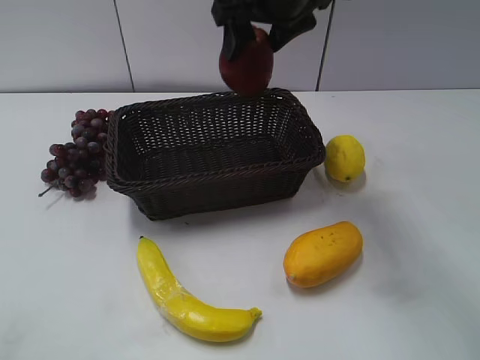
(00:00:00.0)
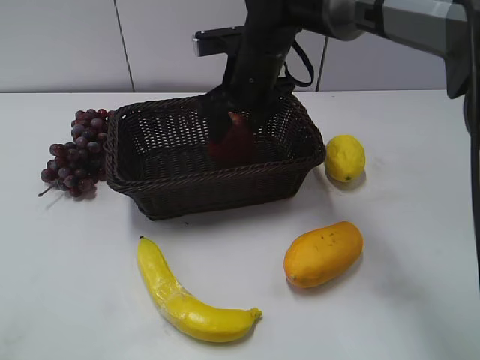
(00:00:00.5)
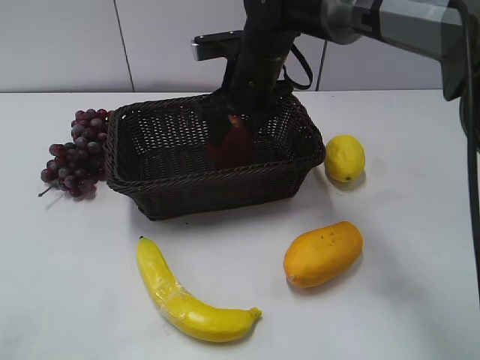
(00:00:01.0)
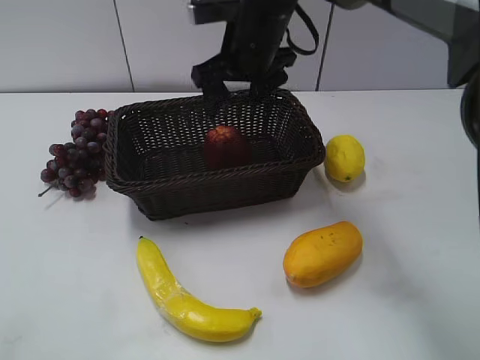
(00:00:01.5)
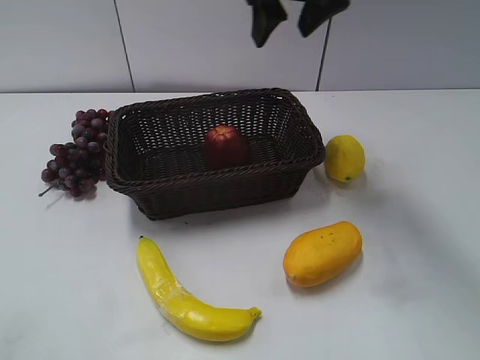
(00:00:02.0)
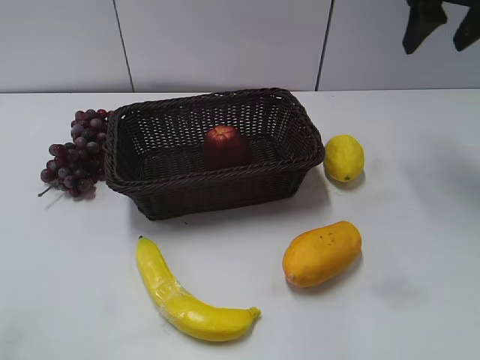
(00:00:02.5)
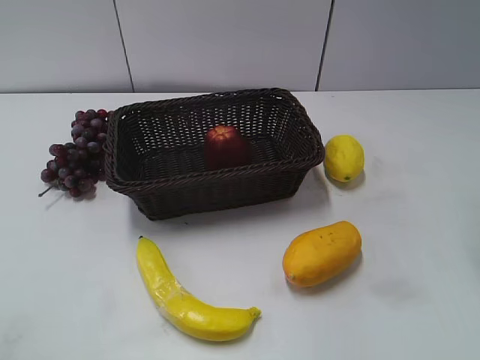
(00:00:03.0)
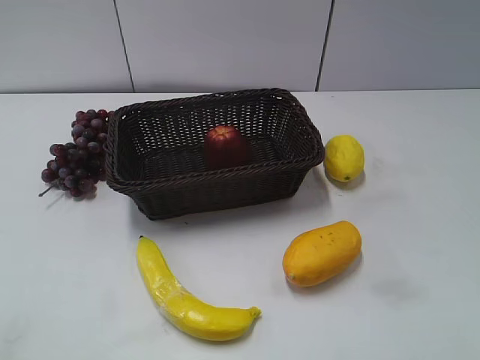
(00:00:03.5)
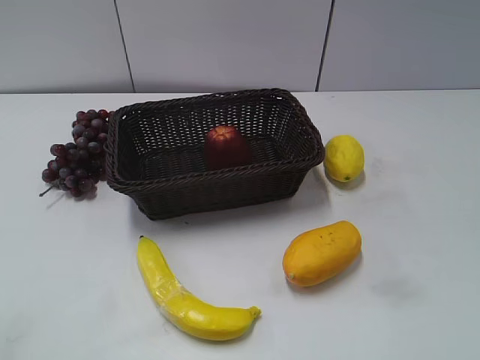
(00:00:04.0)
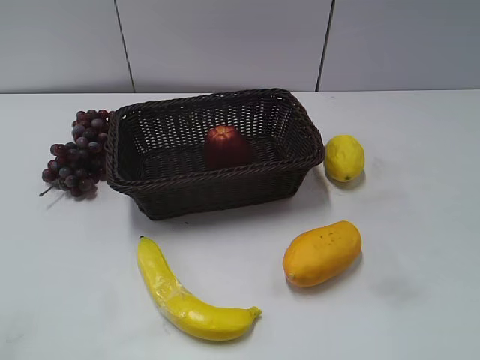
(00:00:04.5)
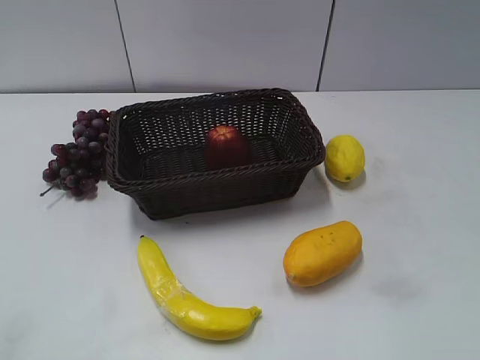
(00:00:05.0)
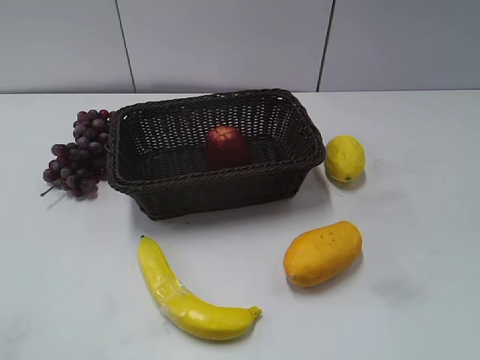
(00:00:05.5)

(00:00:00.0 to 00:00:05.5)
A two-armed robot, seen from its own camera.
00:00:00.0 - 00:00:02.0: The right gripper moves some 10 cm downward and comes back, and opens, then closes once more.
00:00:02.0 - 00:00:03.5: The right gripper shifts about 35 cm backward and to the right.
